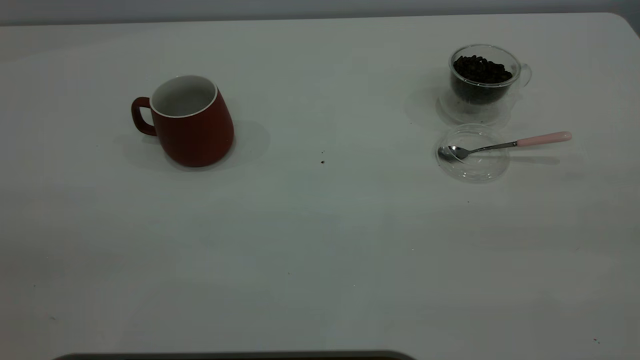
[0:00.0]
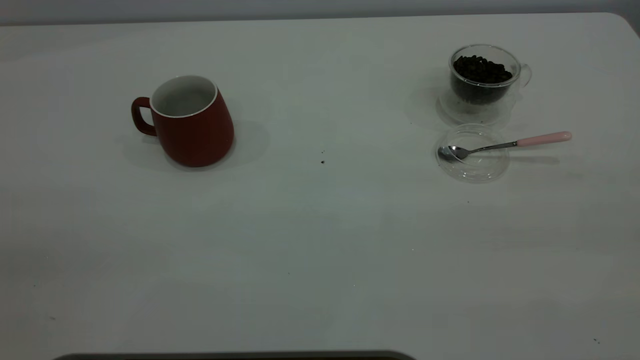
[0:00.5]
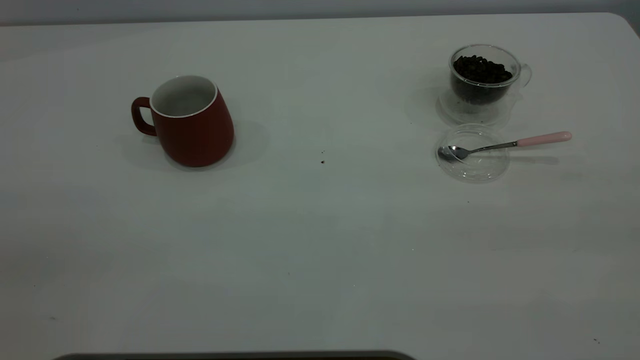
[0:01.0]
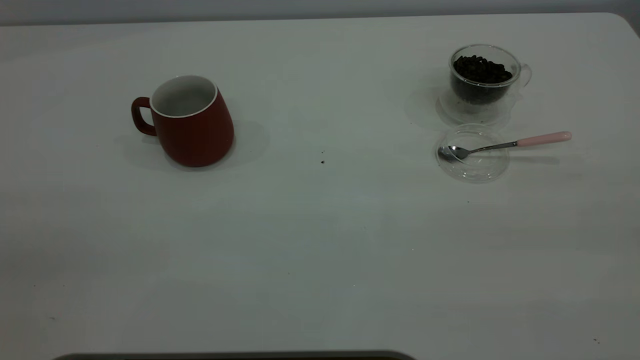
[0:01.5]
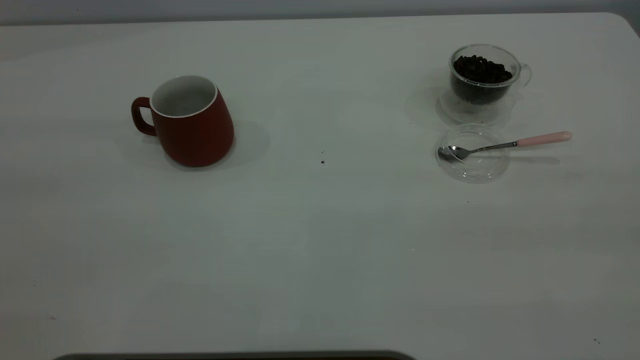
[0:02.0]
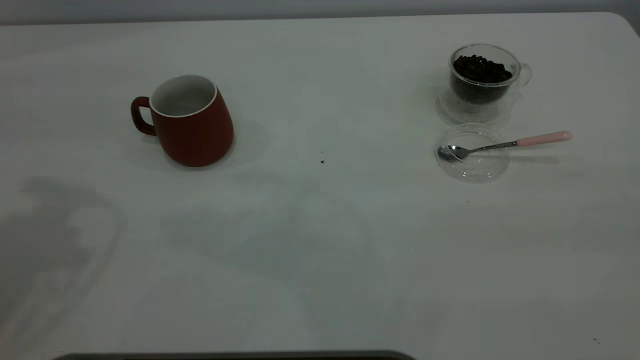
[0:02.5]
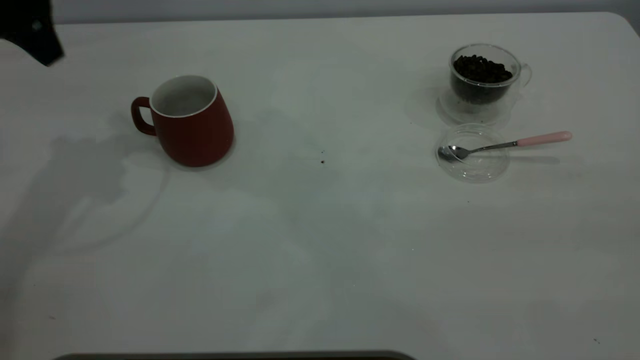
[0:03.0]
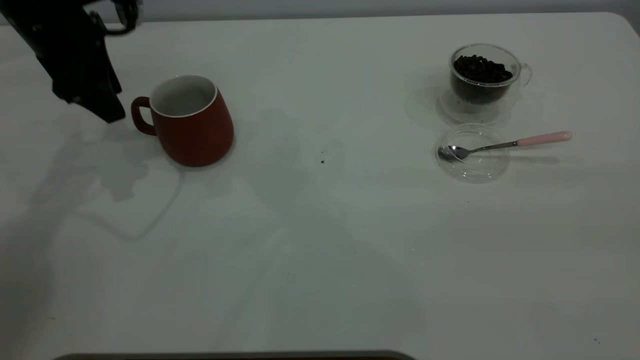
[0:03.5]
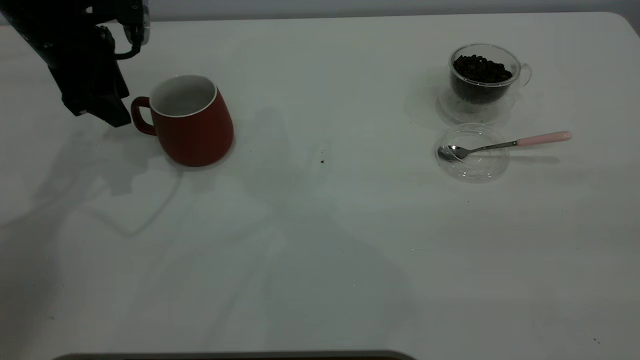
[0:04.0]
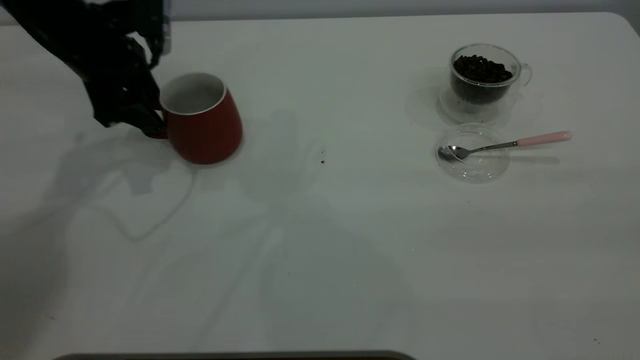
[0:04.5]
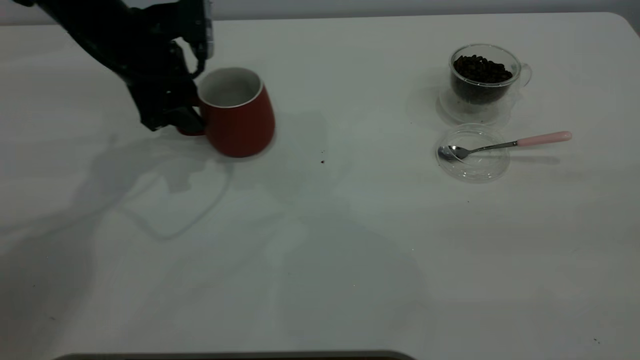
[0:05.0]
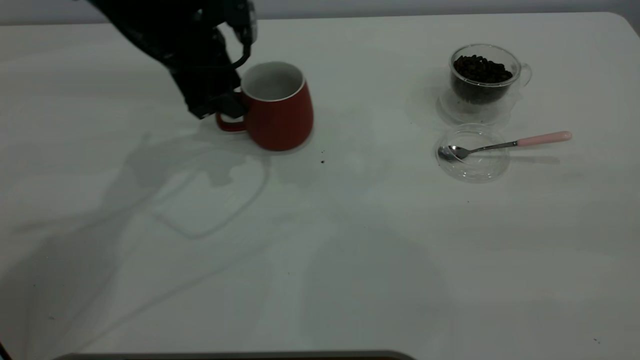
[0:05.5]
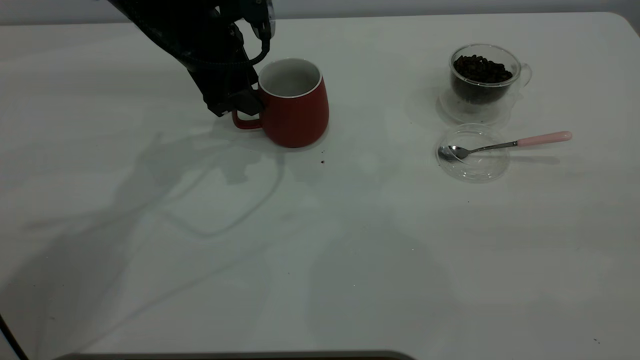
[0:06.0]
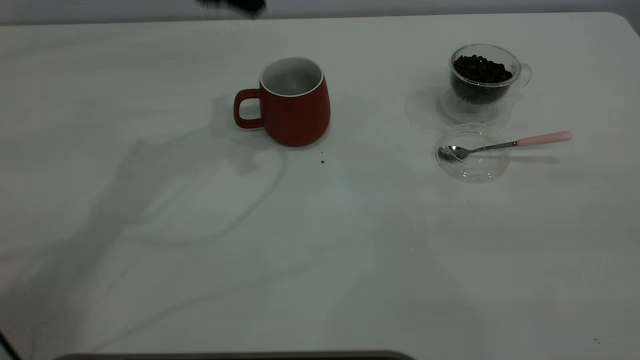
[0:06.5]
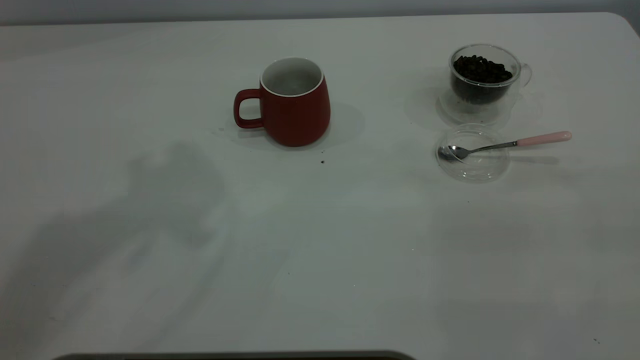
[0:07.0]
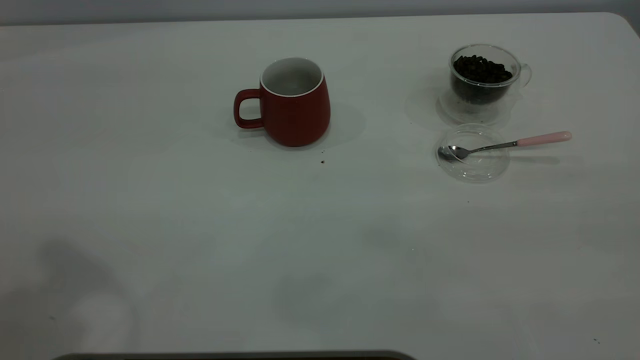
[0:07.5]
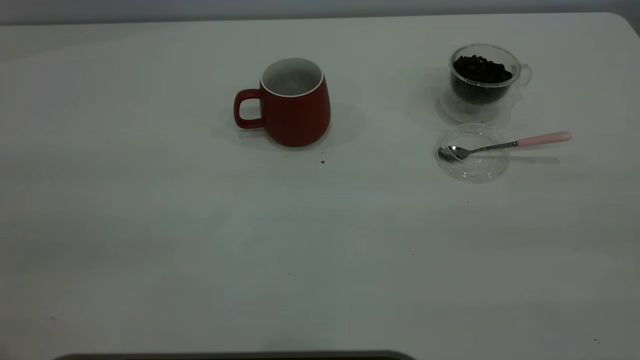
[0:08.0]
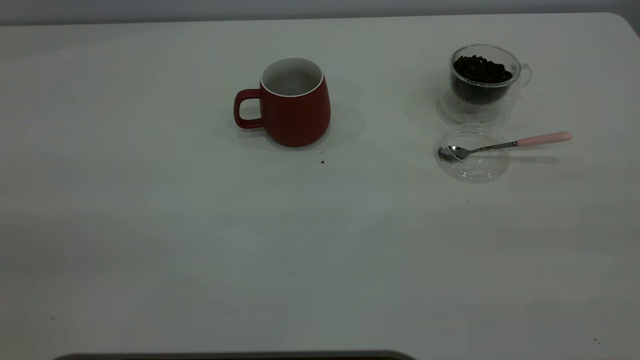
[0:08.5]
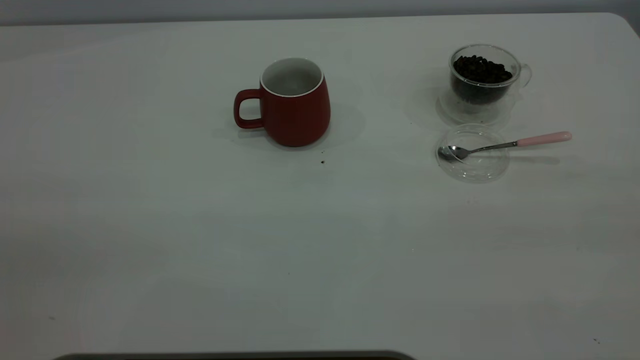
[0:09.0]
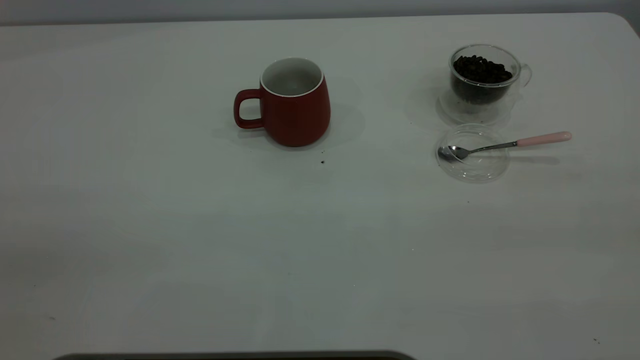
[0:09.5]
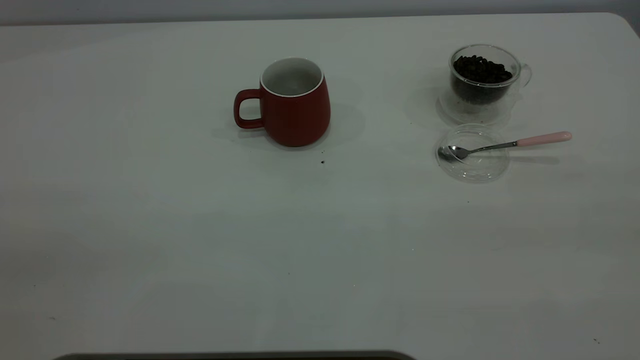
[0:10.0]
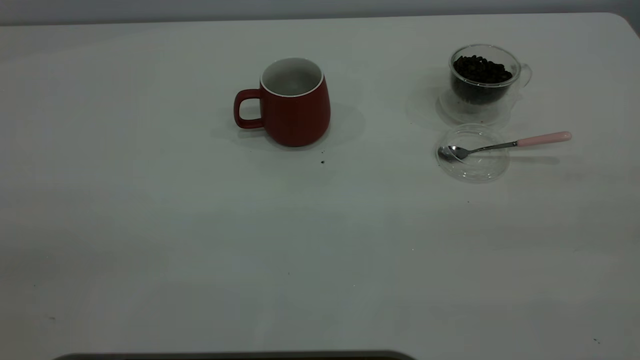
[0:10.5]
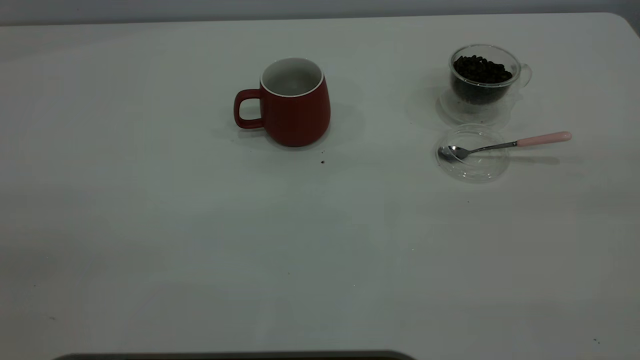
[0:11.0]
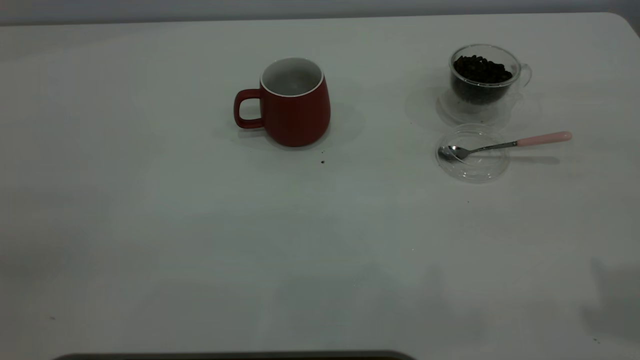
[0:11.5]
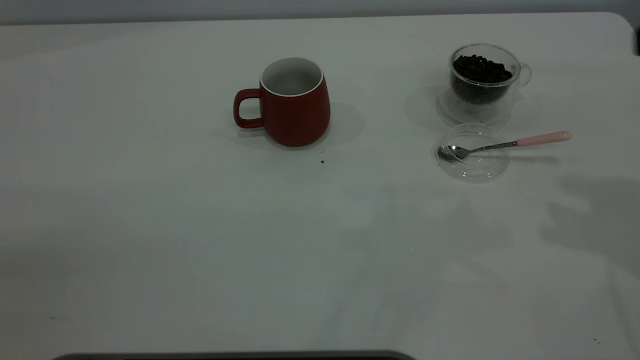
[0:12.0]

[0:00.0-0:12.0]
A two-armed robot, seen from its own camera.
Task of the whole recording: the left gripper place the red cup in the center of the table, the right gripper take the pink spoon from the cup lid and scoop out the coffee beans from the coffee cup and put them into the red cup, the right gripper put the spoon back into the cup lid.
Step, 0:00.0 to 0:06.0: Move the cup to the center of view.
0:02.0 to 0:04.0: The left gripper shifts roughly 40 cm forward and downward.
0:04.0 to 0:06.0: The left gripper moves to the right, approximately 10 cm.
0:06.0 to 0:08.0: The left gripper travels backward and upward by some 40 cm.

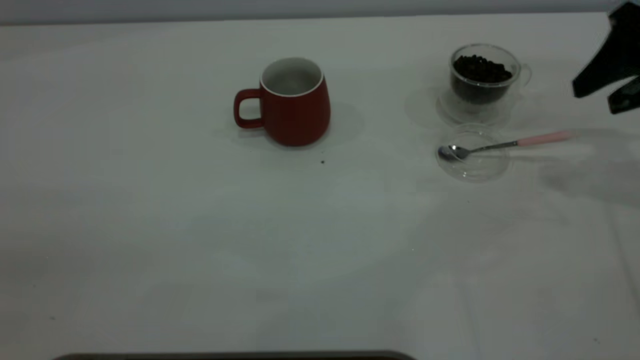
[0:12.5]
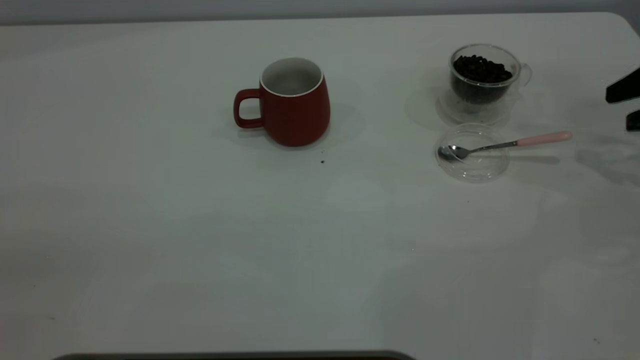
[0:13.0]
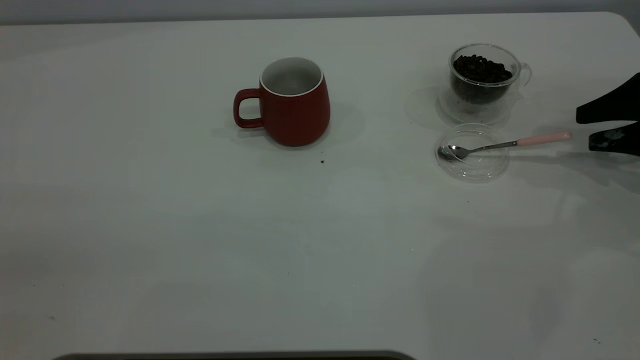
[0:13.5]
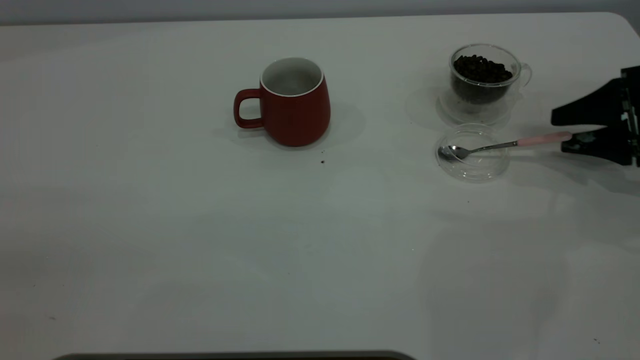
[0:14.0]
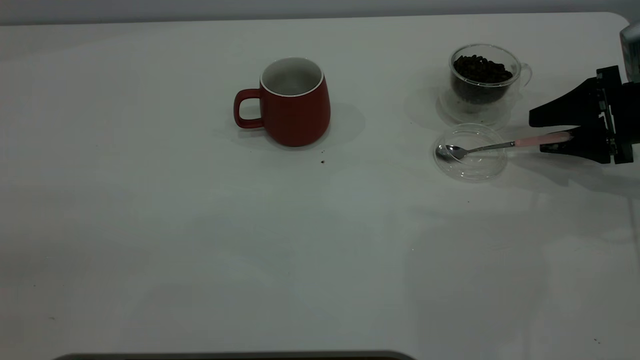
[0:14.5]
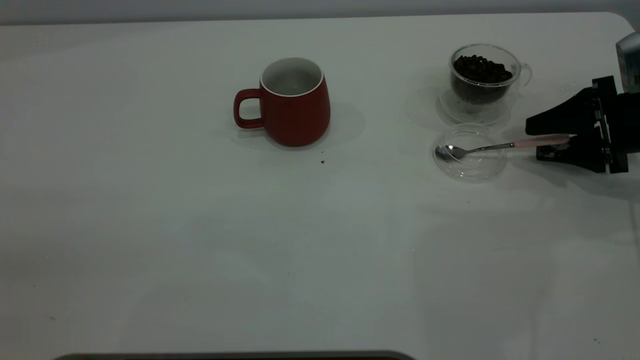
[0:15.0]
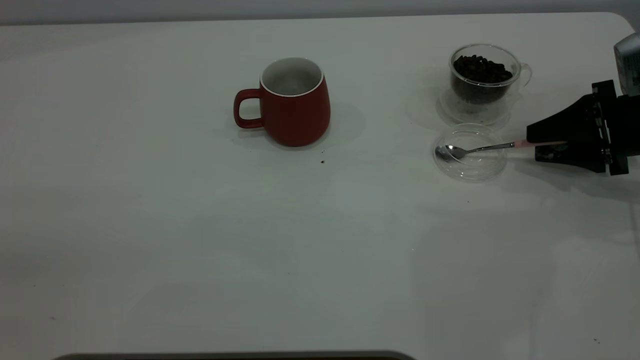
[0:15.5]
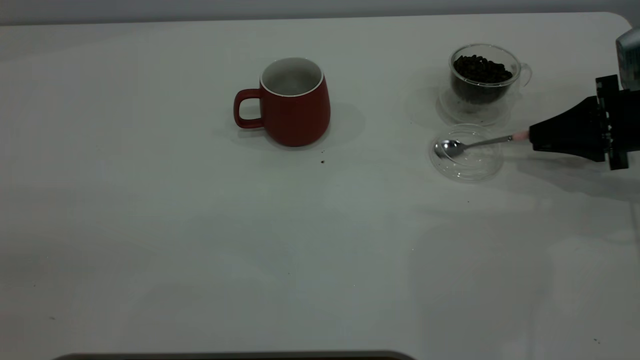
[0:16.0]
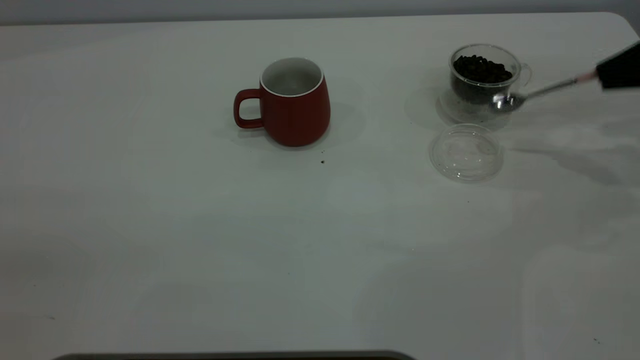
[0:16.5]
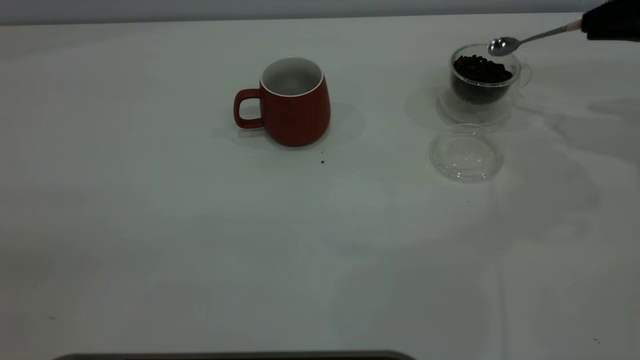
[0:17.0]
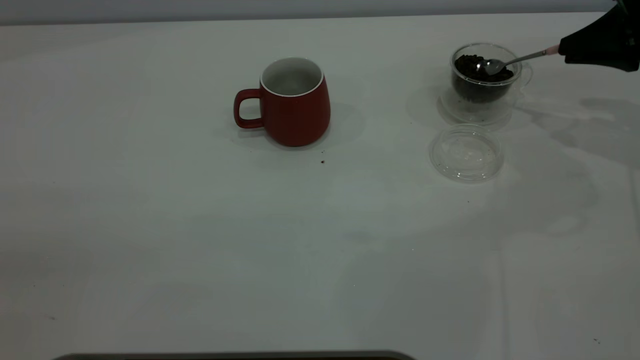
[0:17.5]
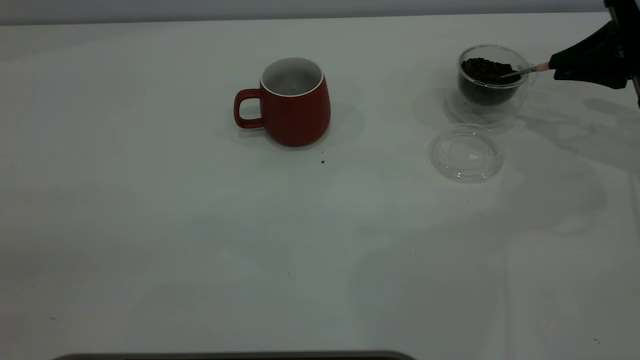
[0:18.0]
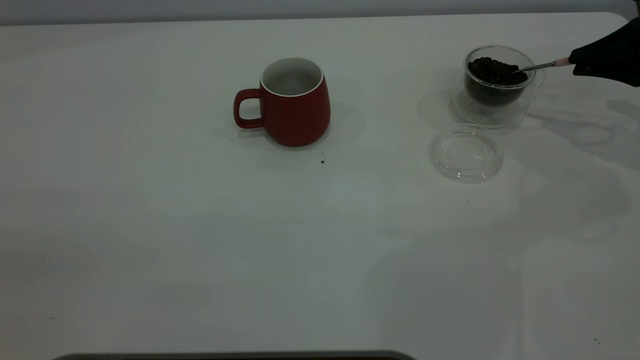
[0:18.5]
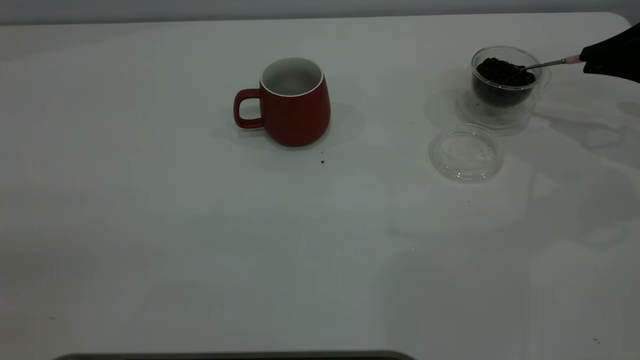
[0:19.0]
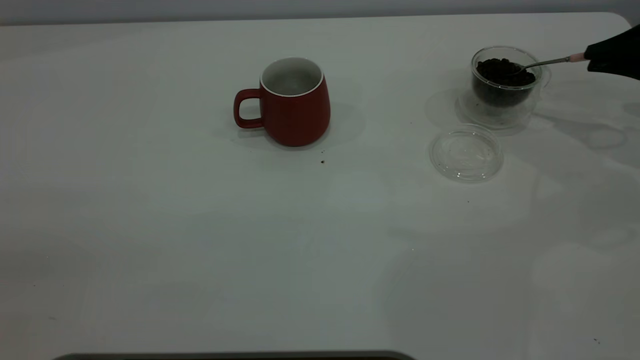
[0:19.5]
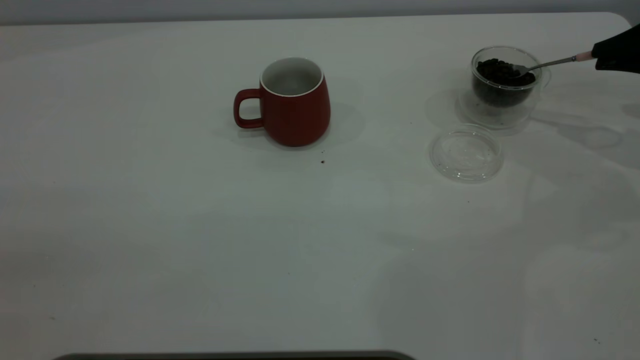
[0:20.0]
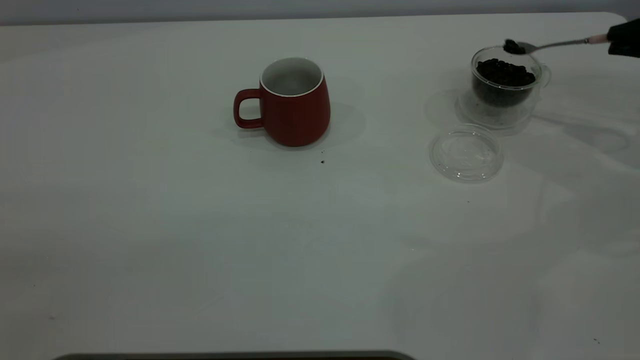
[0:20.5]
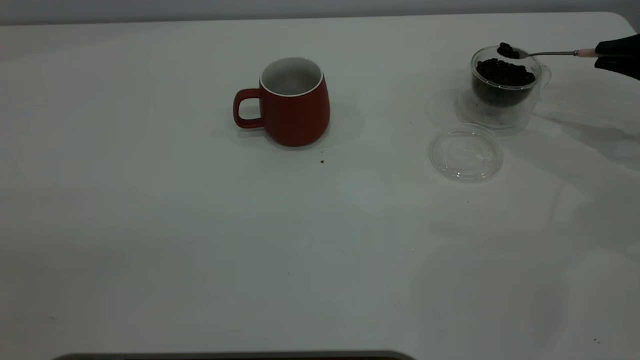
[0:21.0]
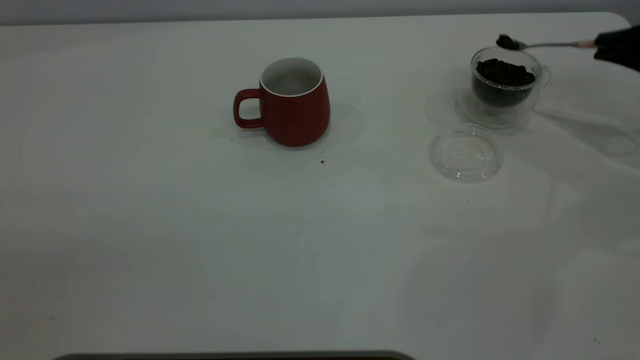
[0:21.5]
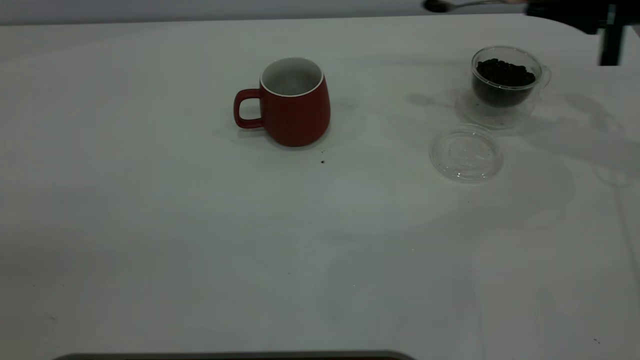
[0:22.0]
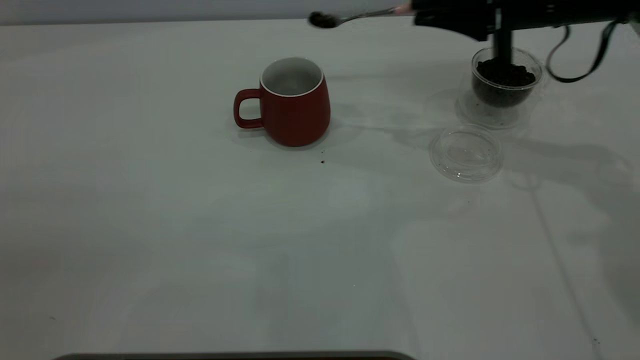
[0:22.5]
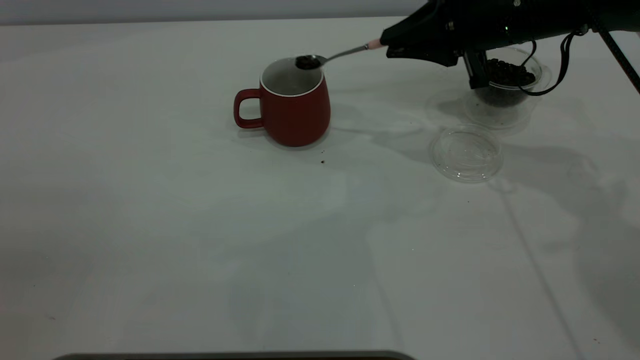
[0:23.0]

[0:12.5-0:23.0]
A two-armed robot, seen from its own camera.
Task of the whole recording: the left gripper place the red cup in the center of the table, the right gripper take the pink spoon from the cup lid and scoop out the coffee beans from the coffee cup and put them into the red cup, the right gripper put the spoon back into the cup lid.
Step, 0:12.5 to 0:16.0: Pick up the spoon.
0:12.5 to 0:14.5: The right gripper shifts some 10 cm downward.
0:14.5 to 0:16.5: The right gripper travels upward by approximately 10 cm, and closes.
0:21.0 to 0:23.0: The right gripper is displaced to the left by roughly 25 cm.
